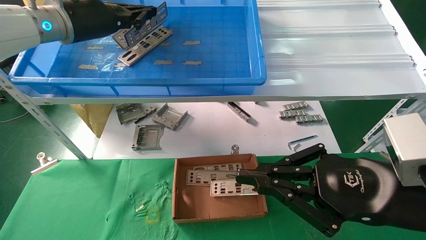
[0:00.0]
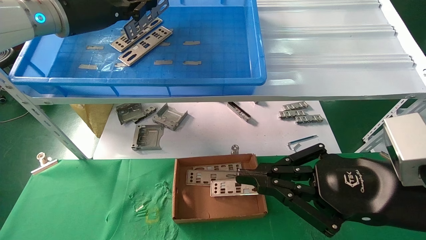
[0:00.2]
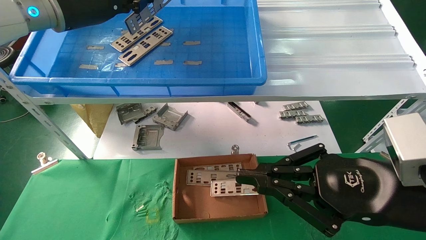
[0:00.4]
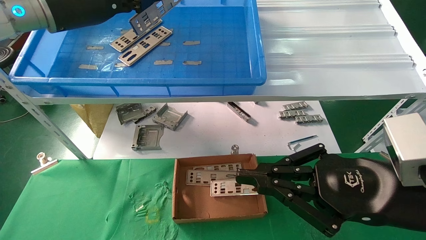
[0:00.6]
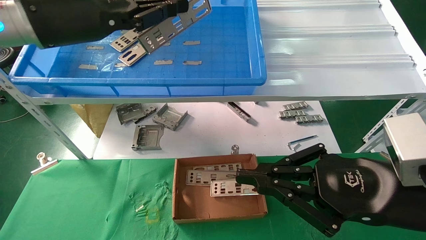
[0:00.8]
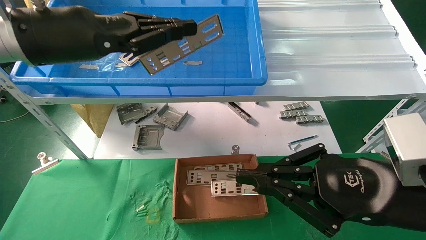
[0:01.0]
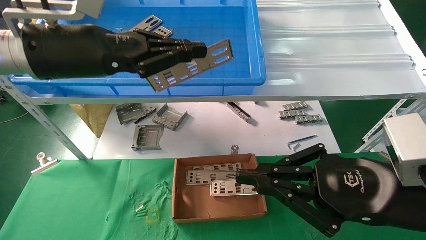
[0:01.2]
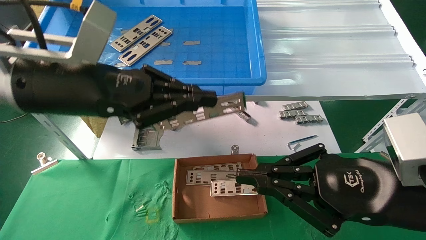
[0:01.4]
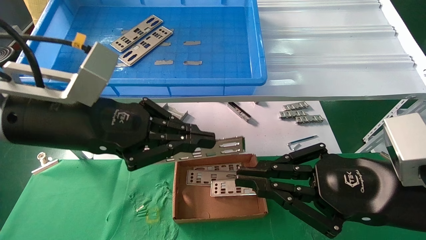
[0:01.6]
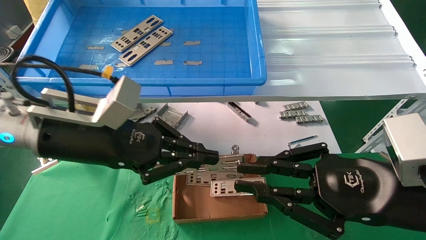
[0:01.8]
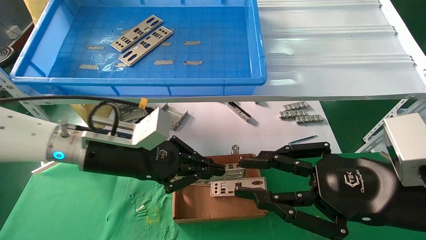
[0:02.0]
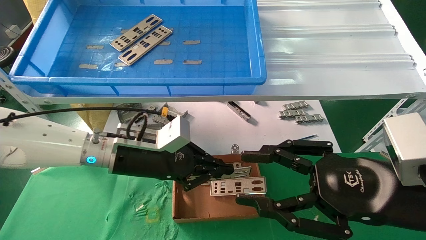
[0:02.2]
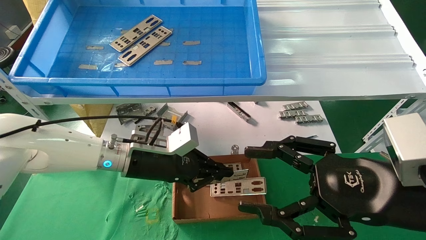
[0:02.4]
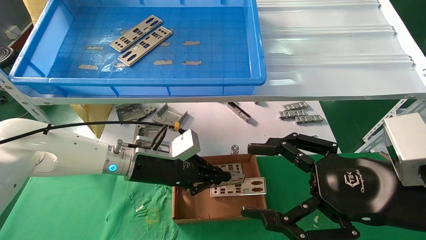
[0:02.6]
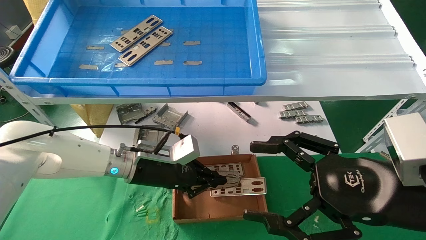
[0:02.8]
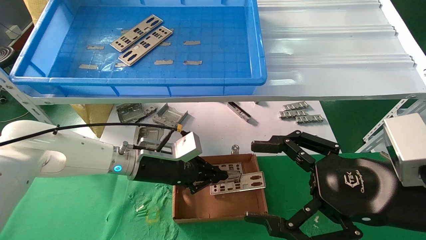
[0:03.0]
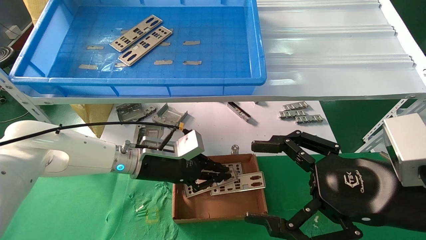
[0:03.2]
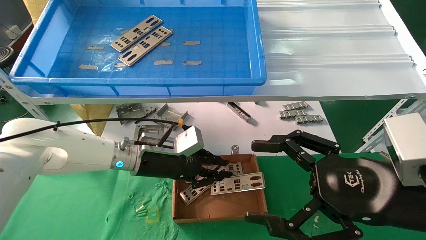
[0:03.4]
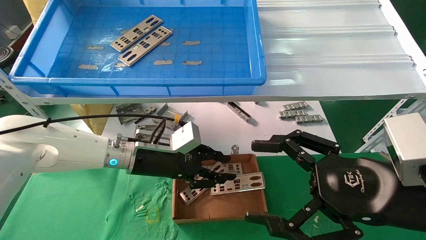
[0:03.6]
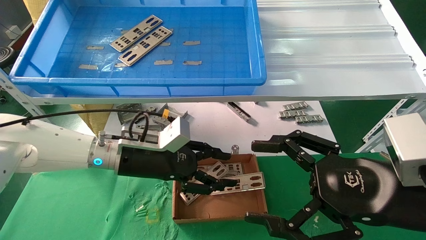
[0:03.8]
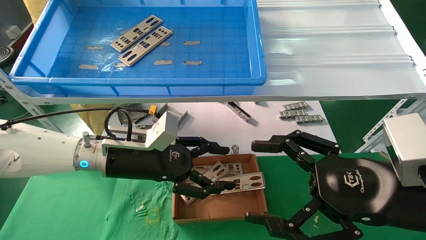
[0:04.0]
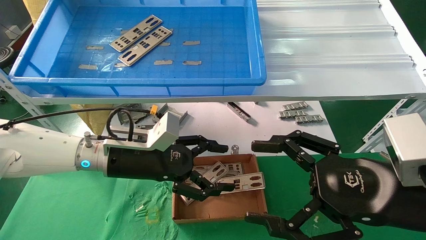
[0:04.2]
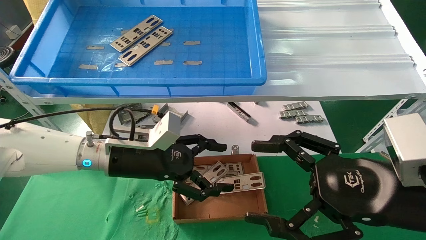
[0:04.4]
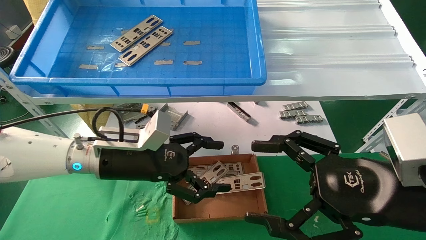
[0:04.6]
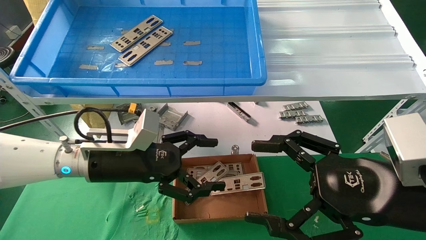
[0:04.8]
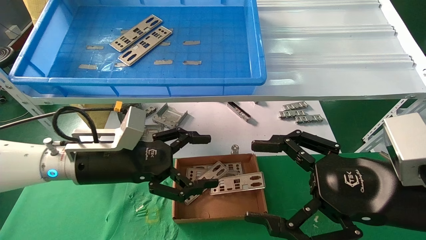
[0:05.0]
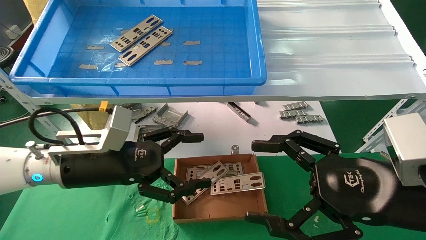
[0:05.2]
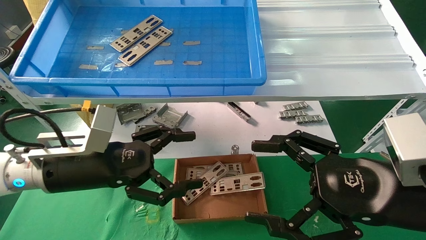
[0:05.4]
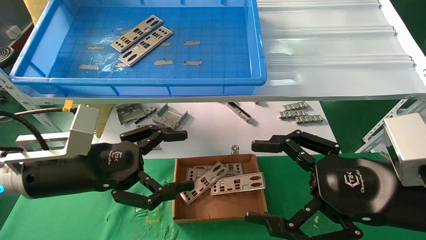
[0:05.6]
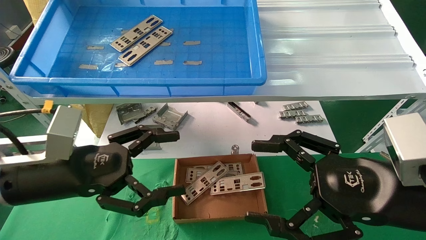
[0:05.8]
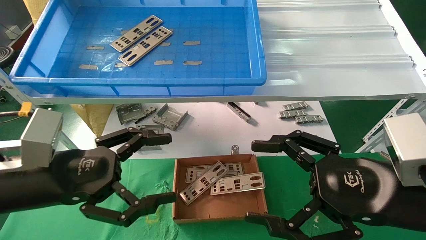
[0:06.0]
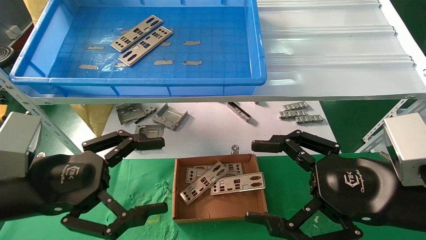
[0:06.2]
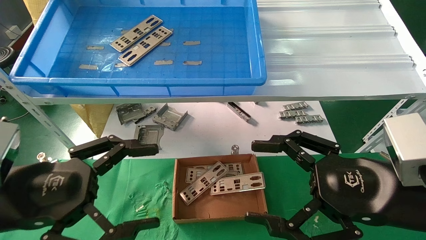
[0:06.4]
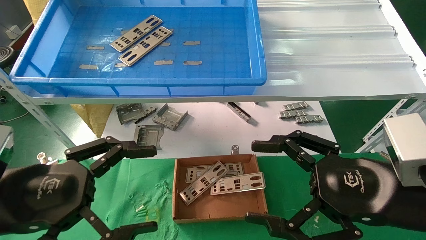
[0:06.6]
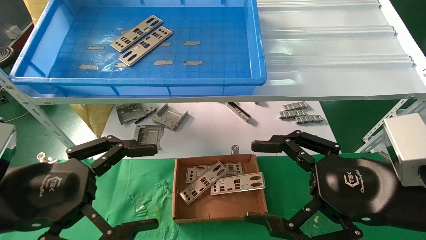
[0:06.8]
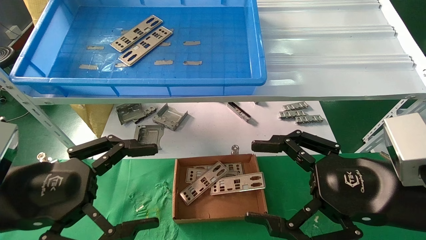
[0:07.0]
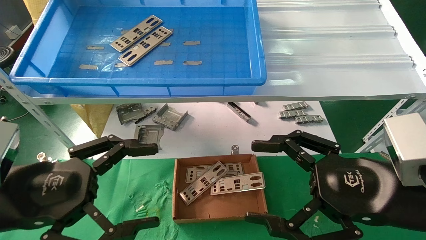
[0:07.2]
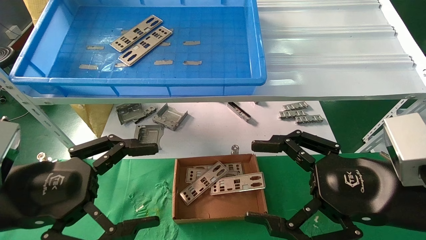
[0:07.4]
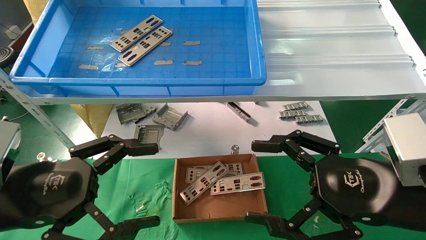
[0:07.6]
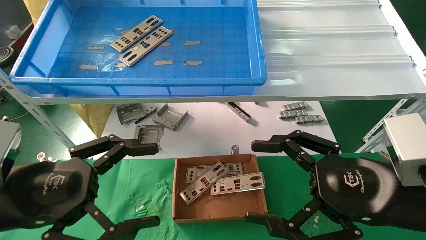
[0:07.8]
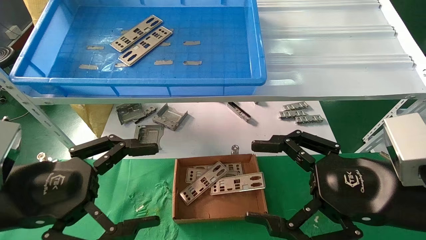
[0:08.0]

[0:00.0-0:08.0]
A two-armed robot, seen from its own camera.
Task of the whole recording: pick up the parts on the tray and put them in the cardboard box.
Step, 0:00.0 to 0:03.4: Place the IO bracket into the ingredient slot.
0:00.0 to 0:01.6: The left gripper moves backward and downward, roughly 20 cm.
0:01.6 to 0:03.2: The right gripper opens up, while the left gripper travels downward, forward and to the right by approximately 20 cm.
0:03.2 to 0:04.8: The left gripper shifts approximately 10 cm backward and to the left, and opens.
0:04.8 to 0:06.4: The left gripper moves backward and to the left, approximately 15 cm.
0:06.4 to 0:08.0: Both grippers stay put.
